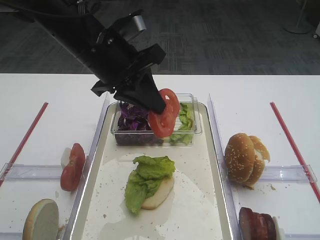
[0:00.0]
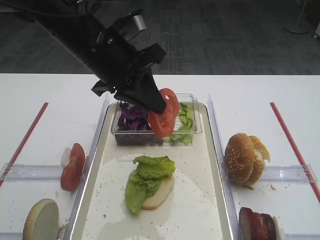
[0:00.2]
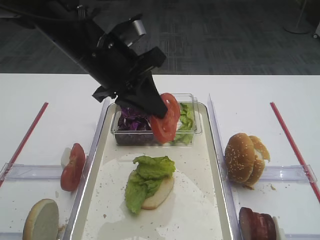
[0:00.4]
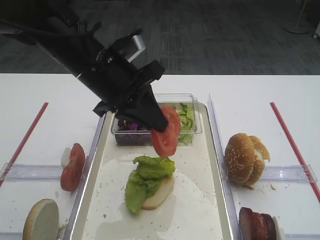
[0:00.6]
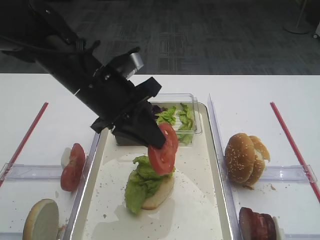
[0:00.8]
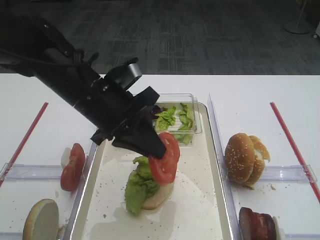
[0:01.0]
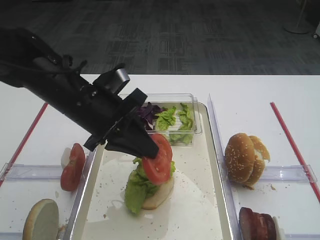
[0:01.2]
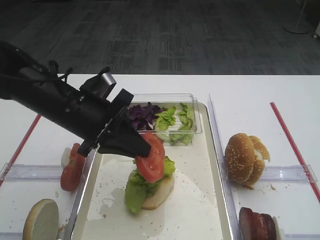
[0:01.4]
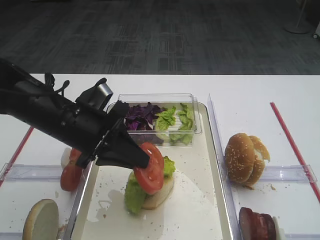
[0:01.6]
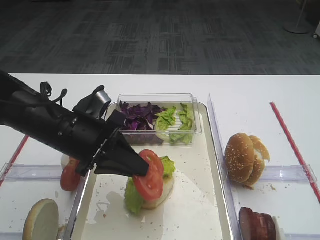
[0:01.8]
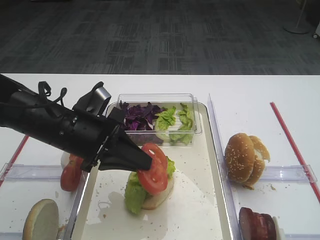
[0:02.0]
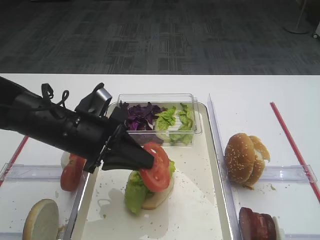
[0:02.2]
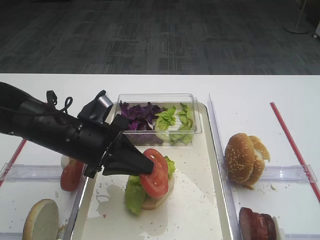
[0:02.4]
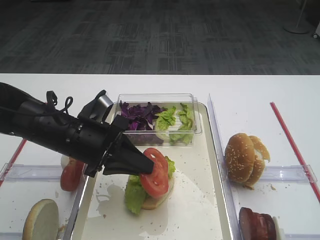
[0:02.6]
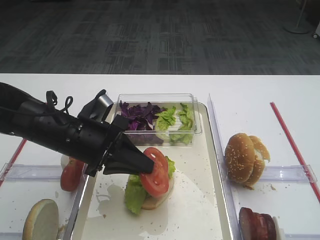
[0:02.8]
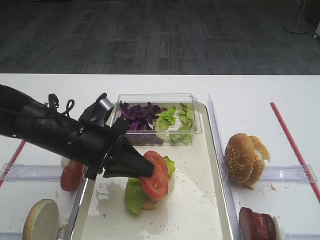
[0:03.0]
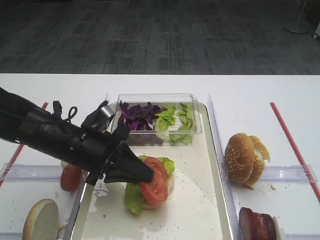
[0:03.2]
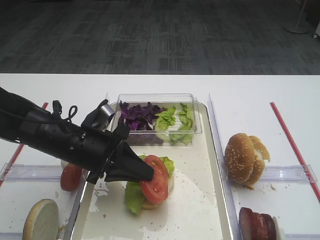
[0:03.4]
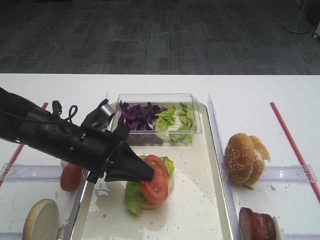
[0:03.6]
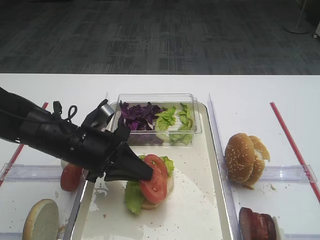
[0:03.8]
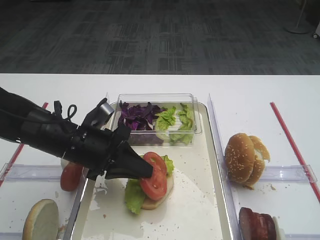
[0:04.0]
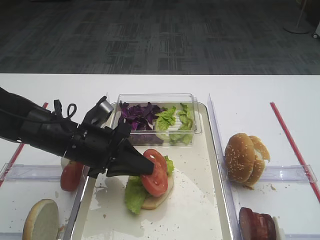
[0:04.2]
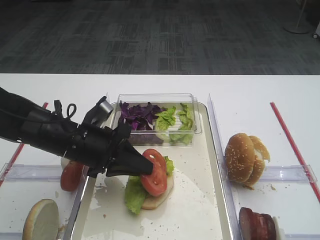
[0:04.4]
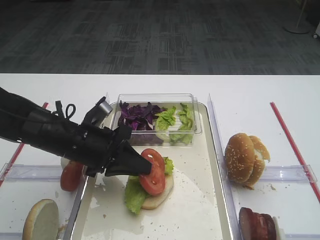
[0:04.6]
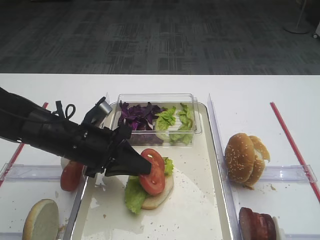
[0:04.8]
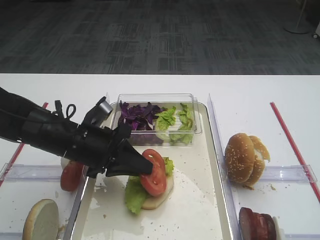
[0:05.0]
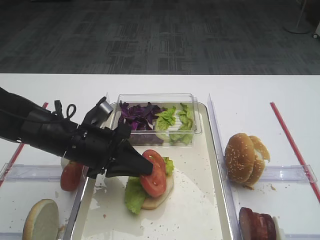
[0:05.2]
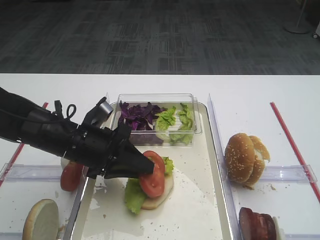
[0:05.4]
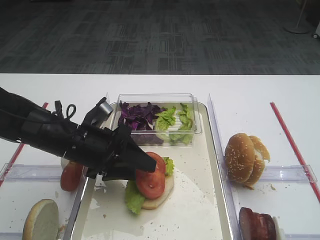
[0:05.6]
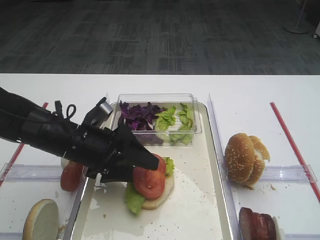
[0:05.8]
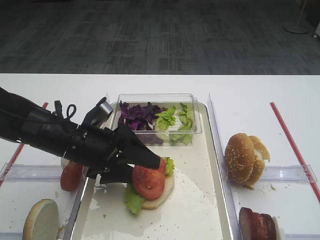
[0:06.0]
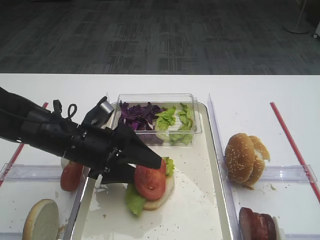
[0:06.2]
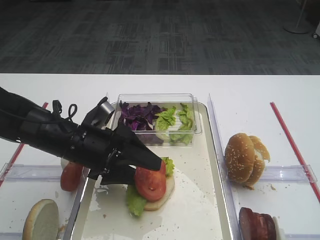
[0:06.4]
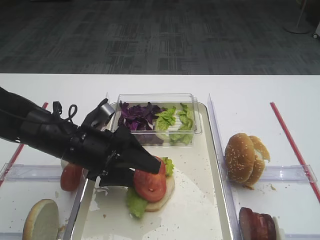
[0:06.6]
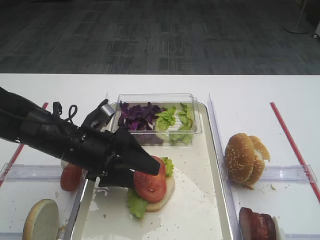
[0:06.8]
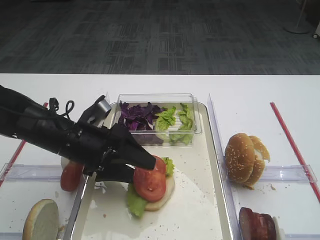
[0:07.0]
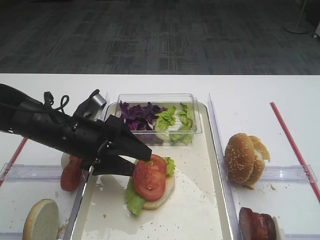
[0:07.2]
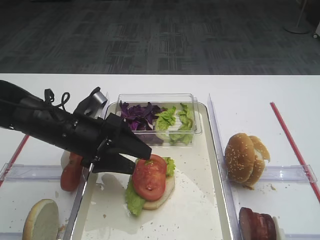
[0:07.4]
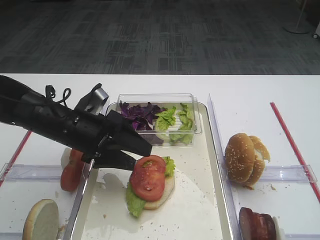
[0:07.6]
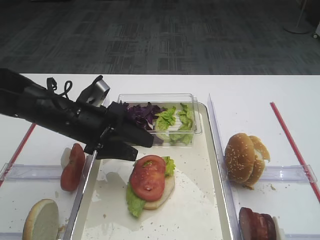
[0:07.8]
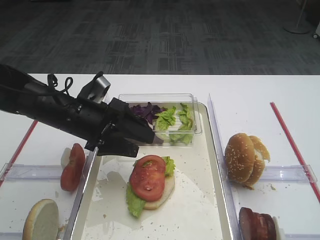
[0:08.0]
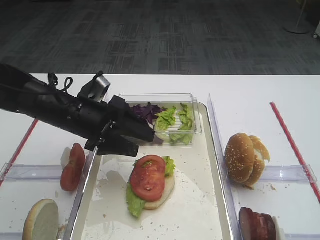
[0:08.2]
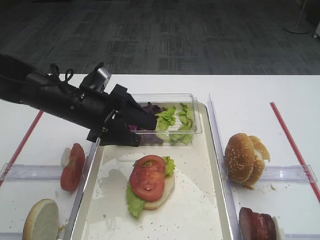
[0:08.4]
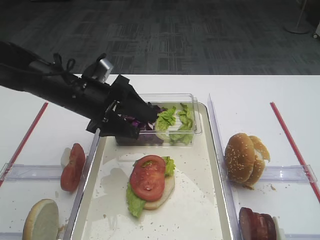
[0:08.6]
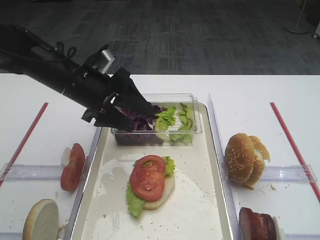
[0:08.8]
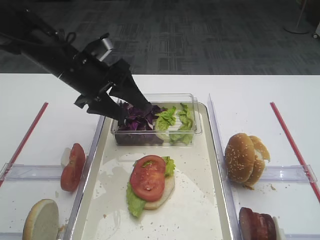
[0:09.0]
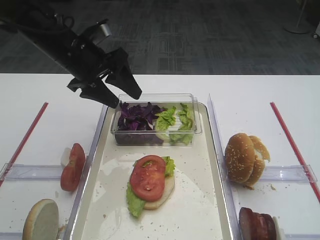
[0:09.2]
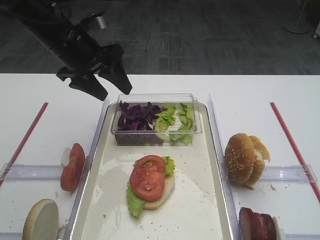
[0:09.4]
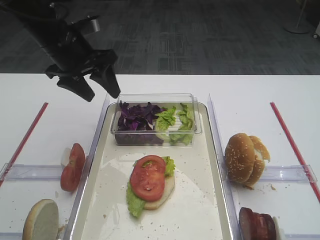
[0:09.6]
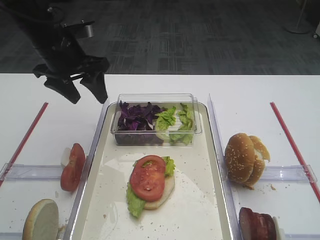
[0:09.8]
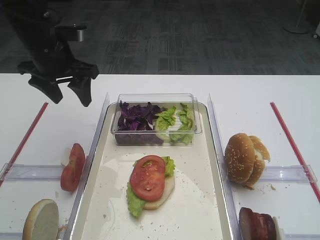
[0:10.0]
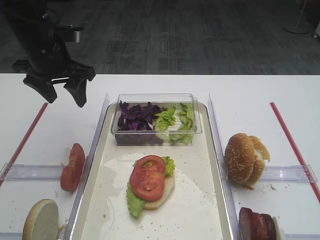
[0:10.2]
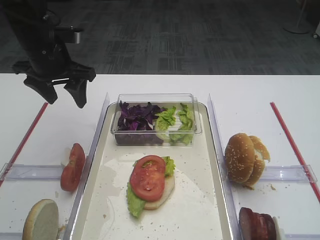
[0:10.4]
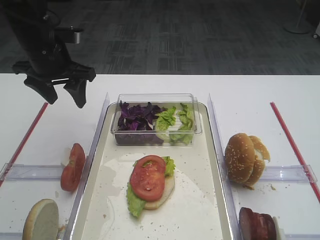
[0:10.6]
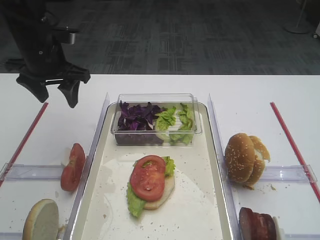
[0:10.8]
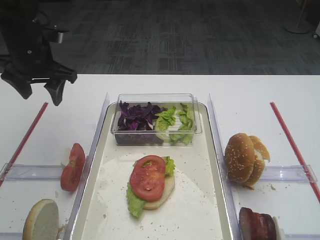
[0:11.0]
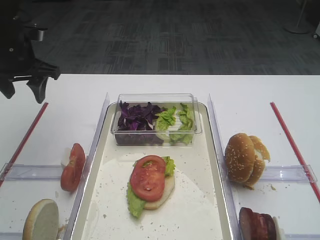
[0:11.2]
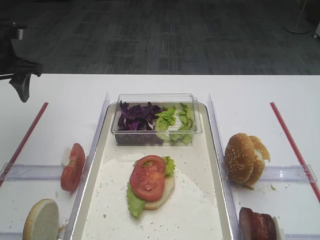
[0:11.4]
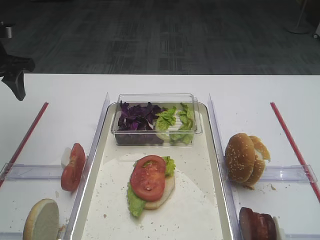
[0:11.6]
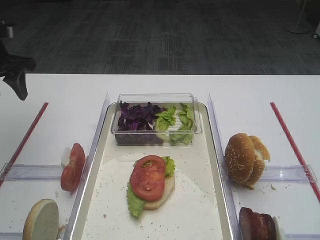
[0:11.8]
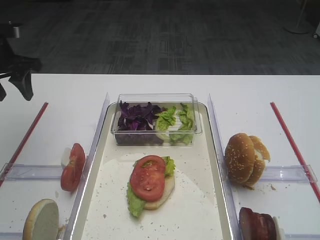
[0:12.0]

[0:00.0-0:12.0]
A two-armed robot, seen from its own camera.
Step, 0:00.0 to 0:08.4: Place the tomato slice on the lettuce leaf with the left gripper.
0:00.0 to 0:01.6: The left gripper heads downward, covering approximately 10 cm.
0:01.6 to 0:04.4: There are only small adjustments of the grippers.
0:04.4 to 0:06.0: The left gripper opens.
0:06.0 to 0:07.6: There are only small adjustments of the grippers.
0:07.6 to 0:09.0: The left gripper shifts some 10 cm upward and forward.
0:09.0 to 0:10.4: The left gripper heads to the left, covering some 5 cm.
0:10.4 to 0:12.0: The left gripper heads to the left, covering some 10 cm.

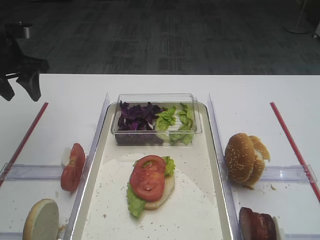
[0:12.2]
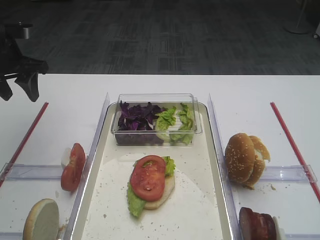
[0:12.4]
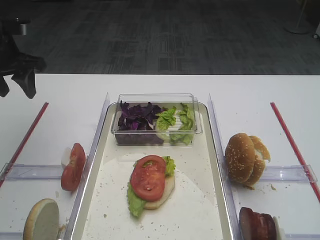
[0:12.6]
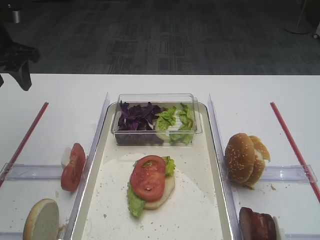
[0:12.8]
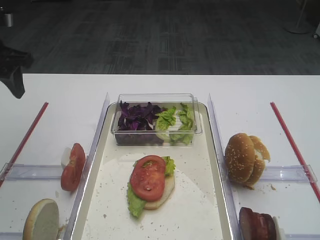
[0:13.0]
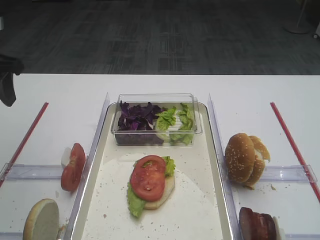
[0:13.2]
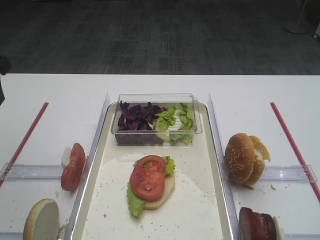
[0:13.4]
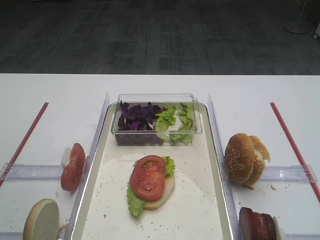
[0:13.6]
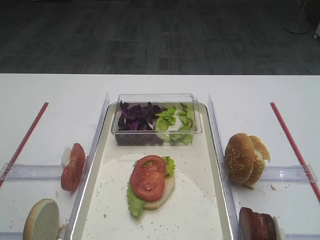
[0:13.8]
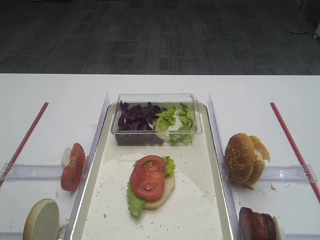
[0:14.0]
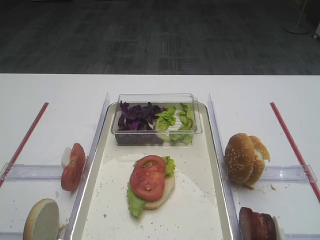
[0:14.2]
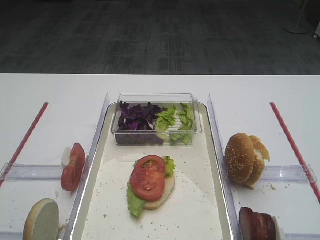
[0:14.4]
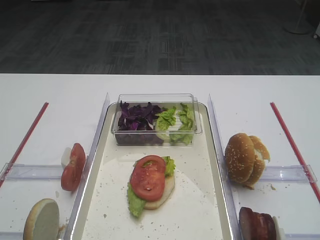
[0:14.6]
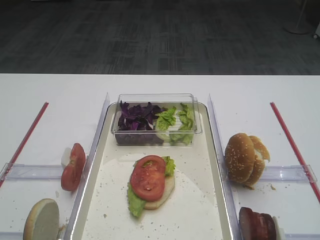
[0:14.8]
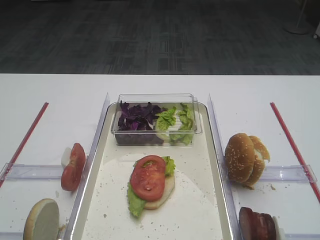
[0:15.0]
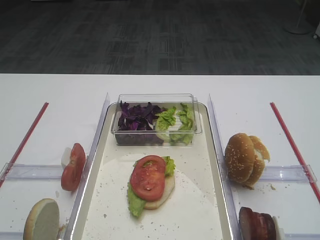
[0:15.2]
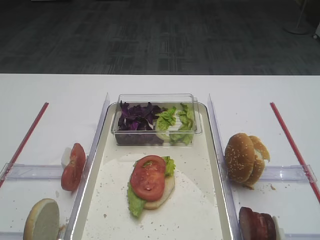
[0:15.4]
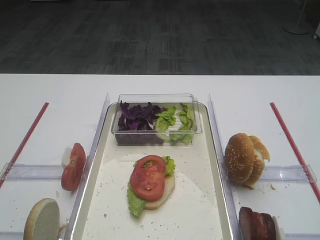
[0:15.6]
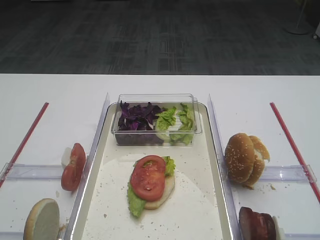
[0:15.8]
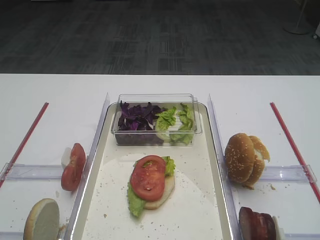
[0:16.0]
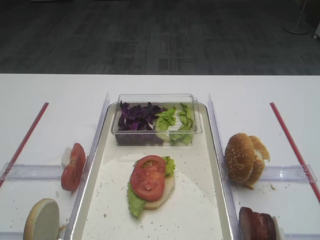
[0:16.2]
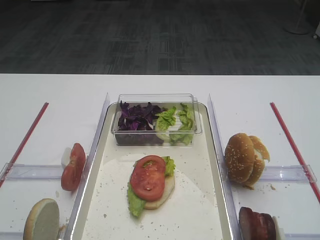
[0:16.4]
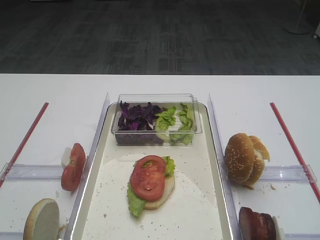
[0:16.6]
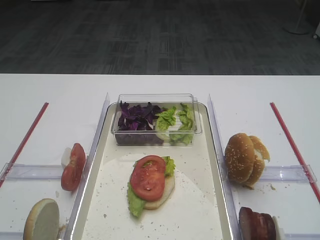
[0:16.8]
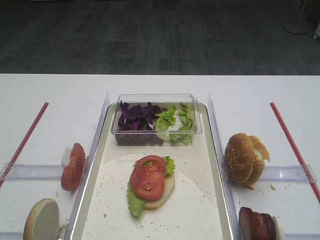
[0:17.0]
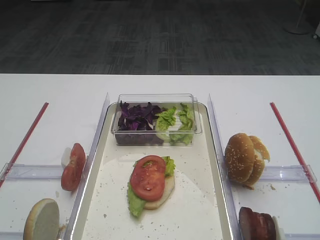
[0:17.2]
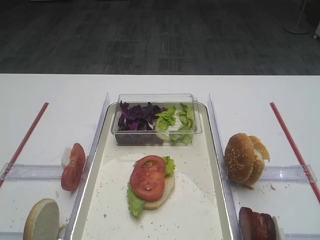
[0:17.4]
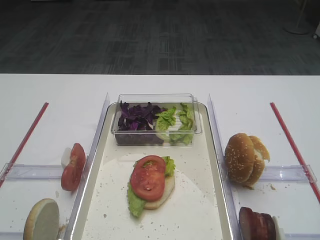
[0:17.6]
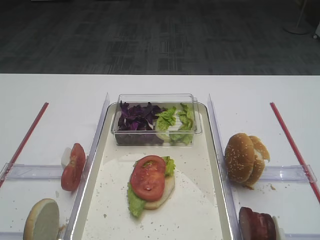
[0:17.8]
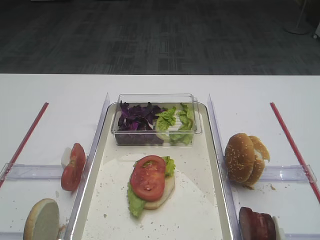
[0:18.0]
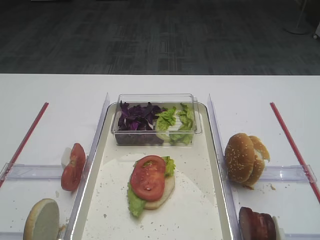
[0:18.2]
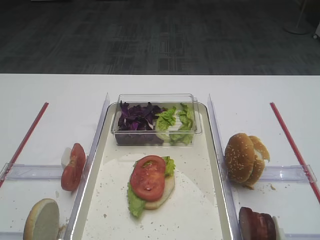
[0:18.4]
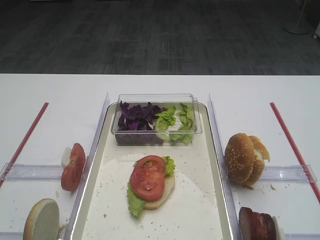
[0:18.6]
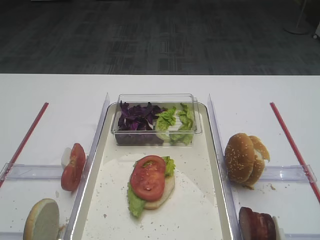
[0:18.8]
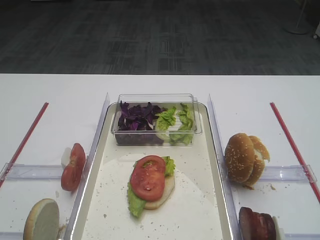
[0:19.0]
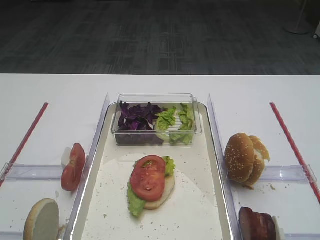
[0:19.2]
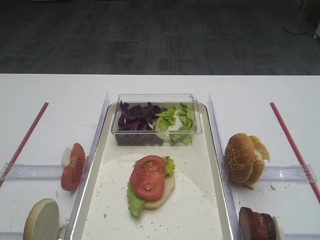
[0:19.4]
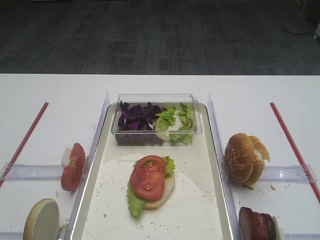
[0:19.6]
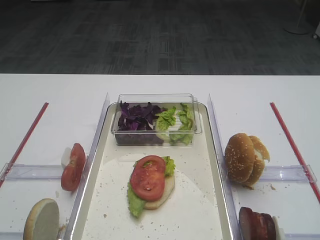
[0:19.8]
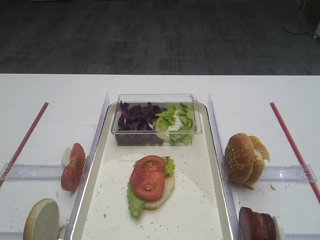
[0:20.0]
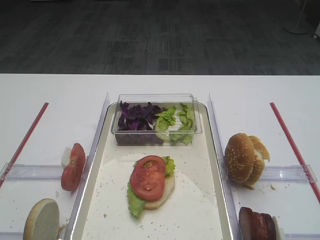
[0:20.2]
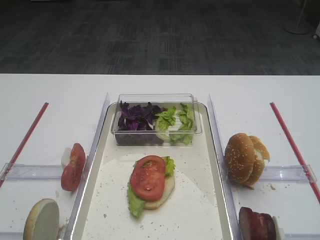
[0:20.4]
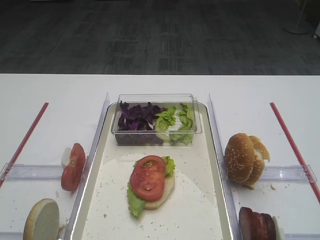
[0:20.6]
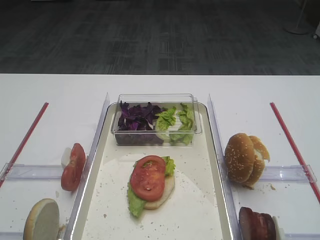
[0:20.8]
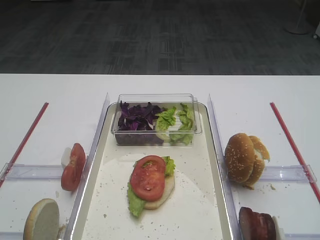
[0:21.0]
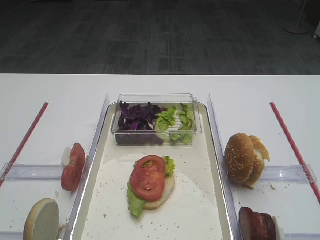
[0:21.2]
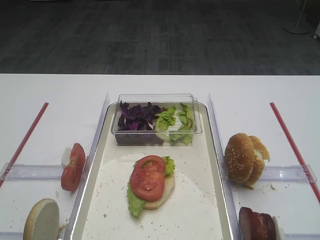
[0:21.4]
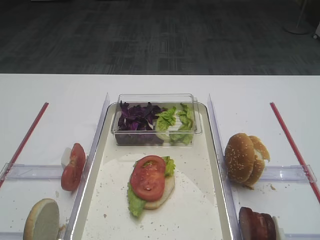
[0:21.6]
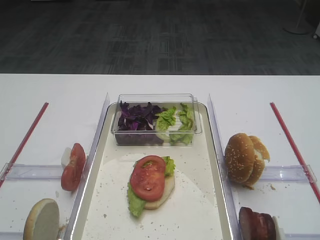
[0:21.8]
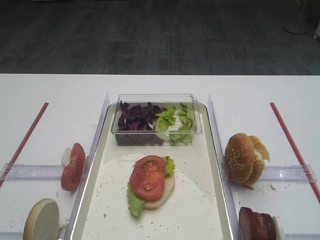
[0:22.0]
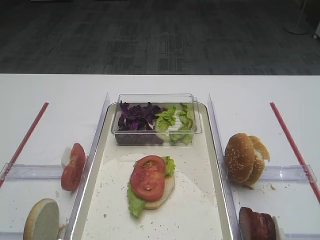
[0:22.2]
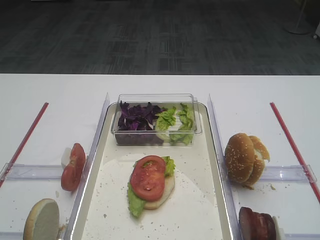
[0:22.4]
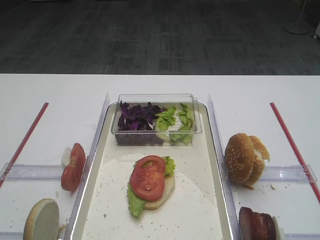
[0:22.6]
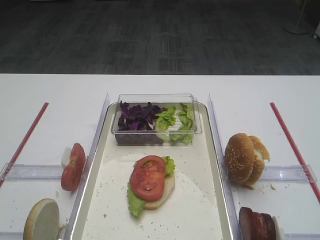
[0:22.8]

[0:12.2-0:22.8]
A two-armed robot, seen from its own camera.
0:12.2 to 0:13.8: The left gripper shifts roughly 20 cm backward and upward.
0:16.8 to 0:22.8: Both grippers stay put.
